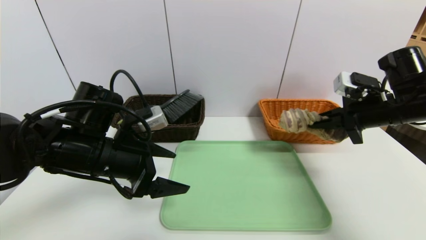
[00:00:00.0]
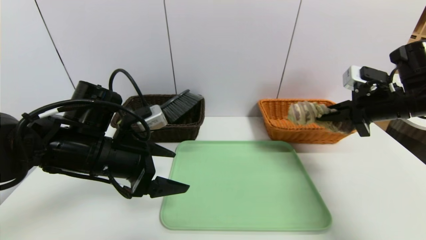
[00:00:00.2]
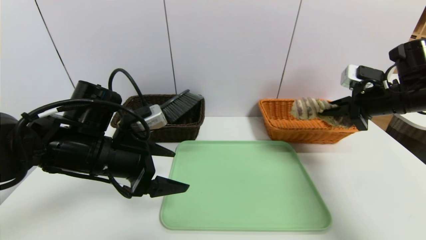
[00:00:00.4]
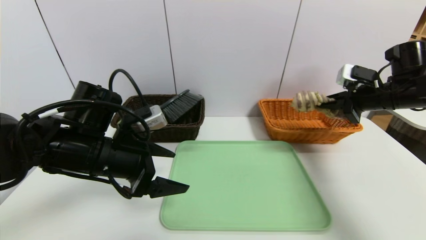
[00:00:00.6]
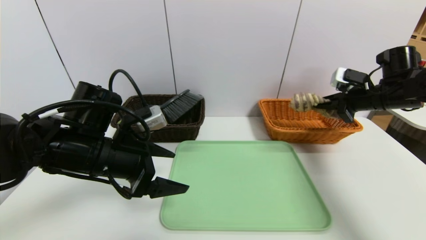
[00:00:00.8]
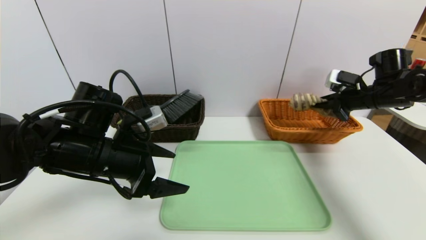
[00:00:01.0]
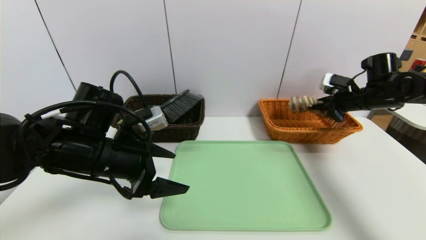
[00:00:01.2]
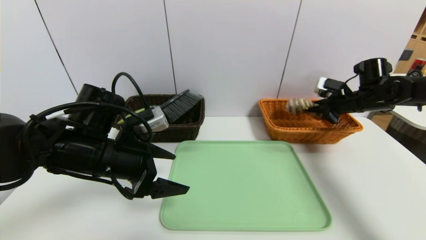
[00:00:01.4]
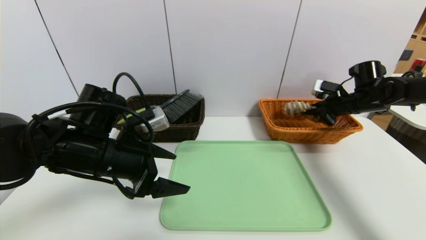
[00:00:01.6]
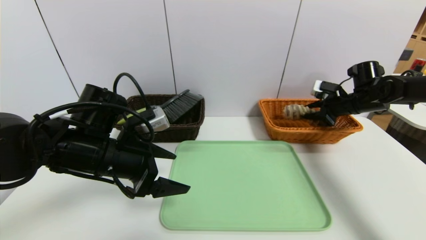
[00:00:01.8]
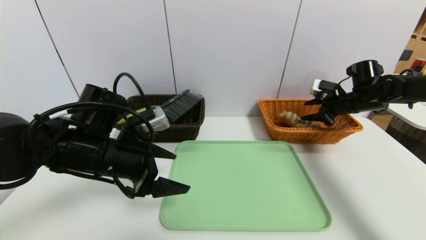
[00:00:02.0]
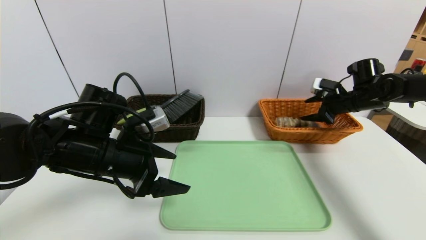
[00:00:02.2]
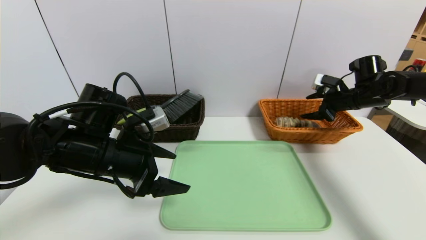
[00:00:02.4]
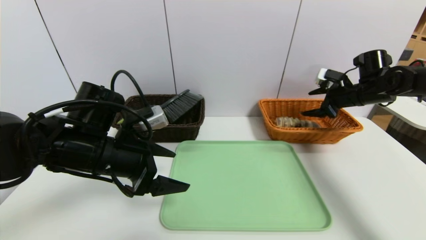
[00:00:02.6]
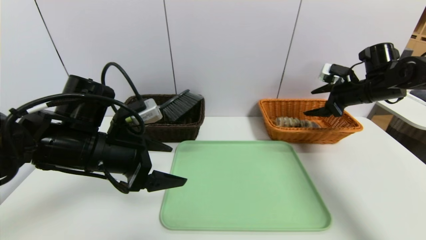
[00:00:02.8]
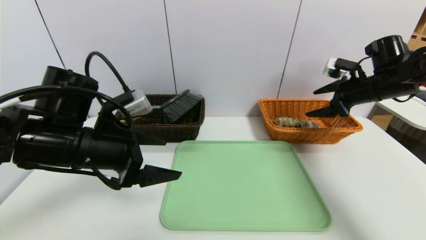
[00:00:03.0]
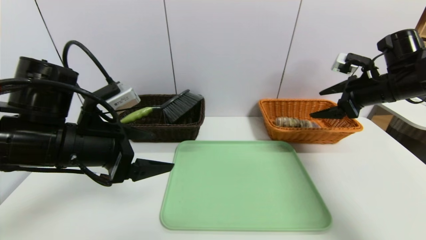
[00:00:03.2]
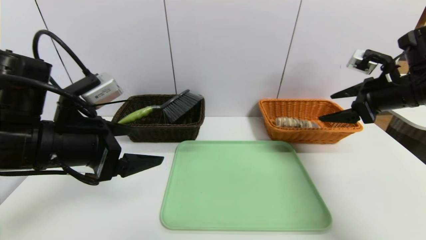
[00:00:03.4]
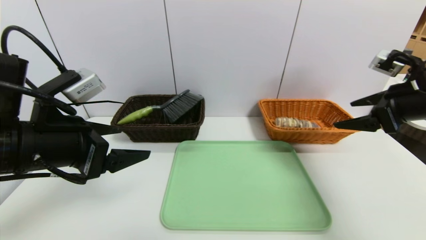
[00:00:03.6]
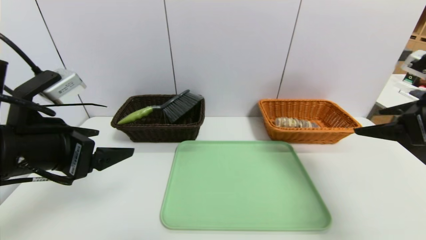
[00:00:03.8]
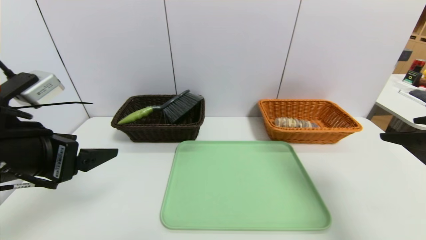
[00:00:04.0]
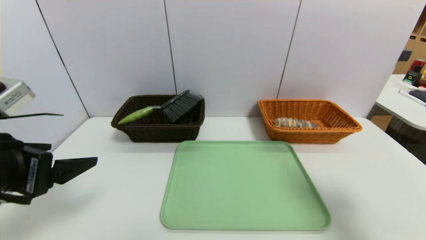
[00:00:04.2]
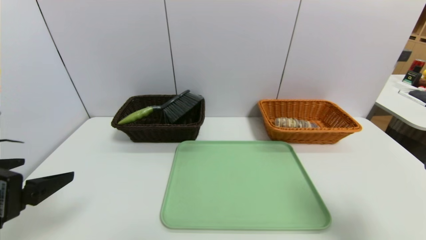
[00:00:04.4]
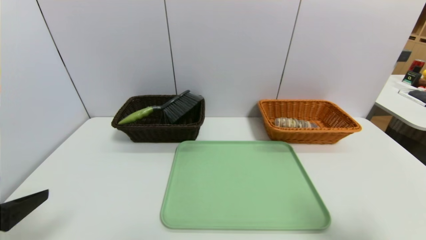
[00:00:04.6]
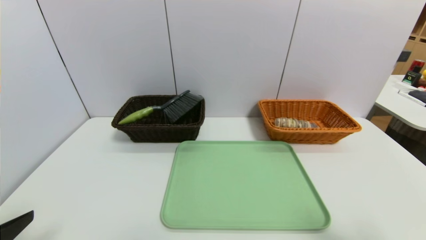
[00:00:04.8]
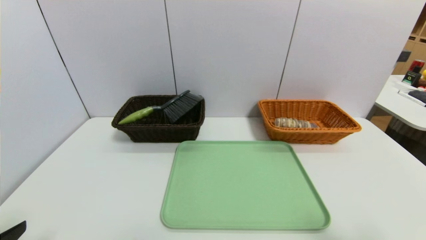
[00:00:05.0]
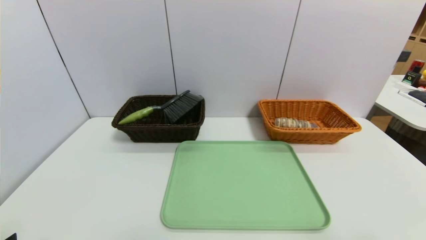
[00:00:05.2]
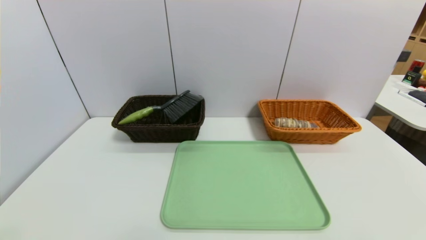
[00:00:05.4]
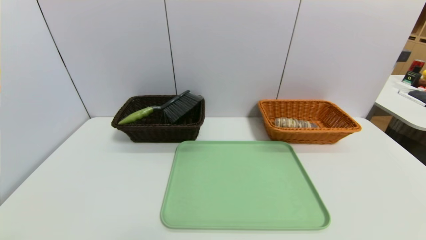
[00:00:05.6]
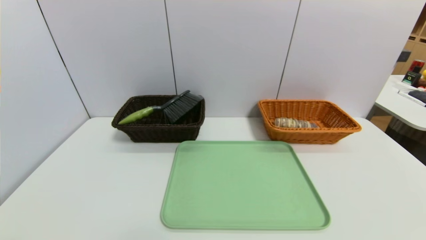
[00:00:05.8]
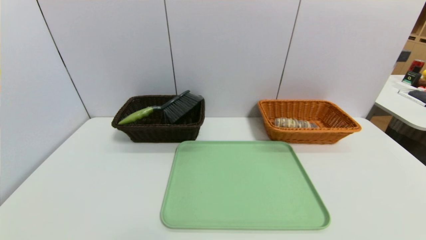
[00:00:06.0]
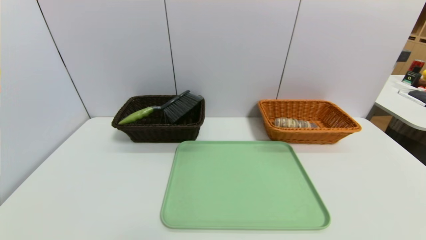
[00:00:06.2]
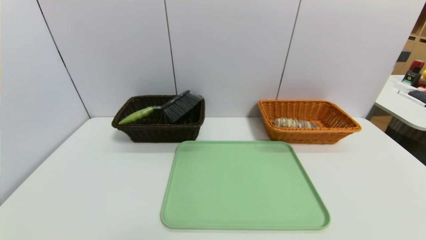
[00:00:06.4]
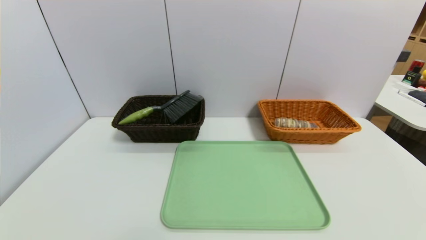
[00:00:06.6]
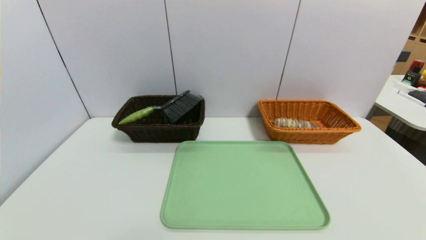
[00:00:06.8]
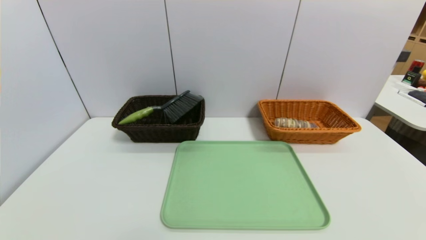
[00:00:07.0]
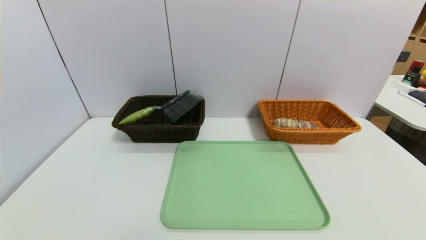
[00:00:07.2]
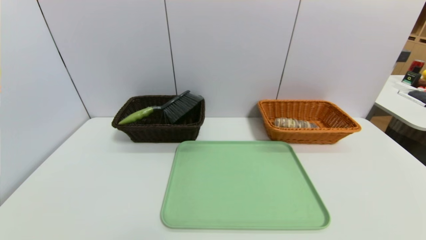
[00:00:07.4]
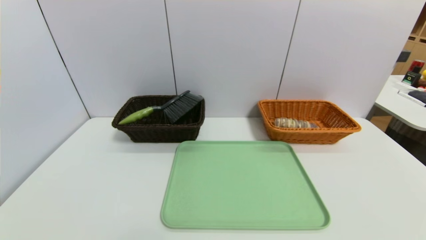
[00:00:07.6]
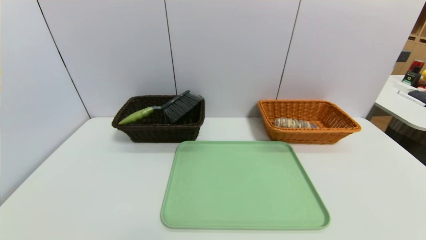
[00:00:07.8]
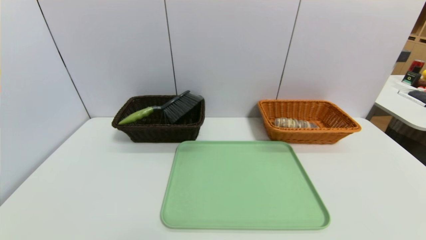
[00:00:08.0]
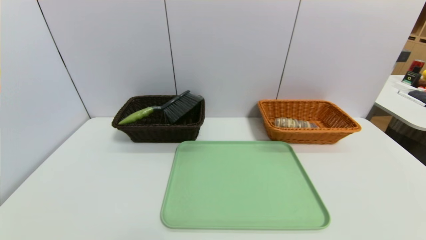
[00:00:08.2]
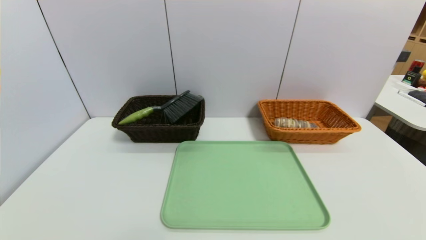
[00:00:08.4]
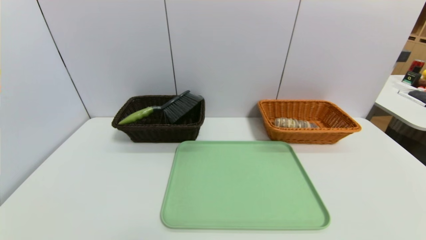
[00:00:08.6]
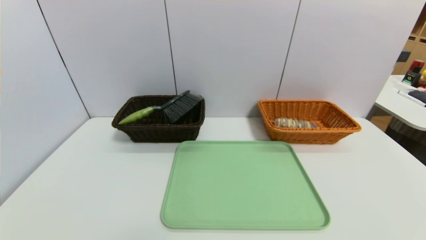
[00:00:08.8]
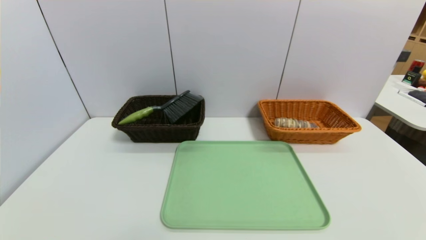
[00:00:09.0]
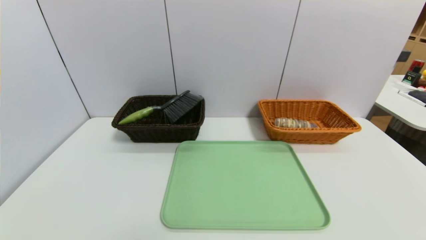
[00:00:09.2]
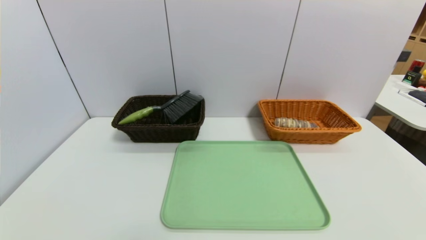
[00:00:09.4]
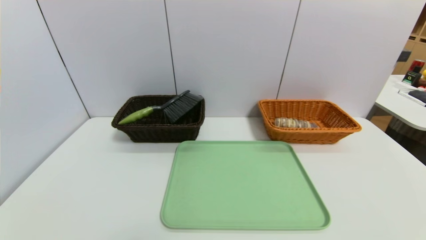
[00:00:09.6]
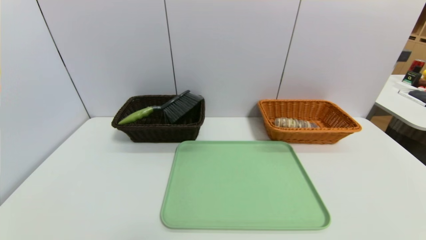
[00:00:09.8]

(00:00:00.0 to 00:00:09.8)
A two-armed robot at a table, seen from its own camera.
Task of the whole recording: place the food in the right basket with the right gripper, and place the non food items in the left basket with the left gripper.
Step, 00:00:00.0 - 00:00:02.2: Grasp the long bread and put it in the right basket.
00:00:00.0 - 00:00:01.4: The right gripper goes roughly 15 cm forward and to the right.
00:00:01.4 - 00:00:02.8: The right gripper opens.
00:00:02.8 - 00:00:04.2: The right gripper moves backward, approximately 30 cm, while the left gripper travels backward, to the left and upward by roughly 15 cm.
00:00:04.2 - 00:00:05.6: Both grippers move backward and downward, roughly 15 cm.
